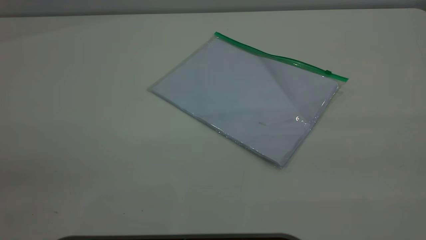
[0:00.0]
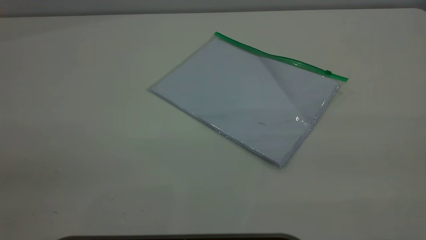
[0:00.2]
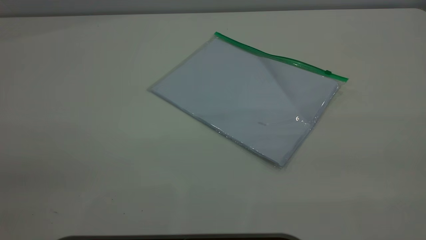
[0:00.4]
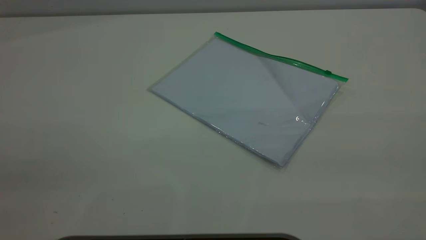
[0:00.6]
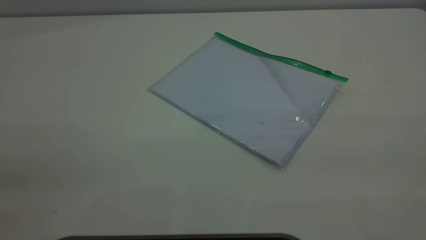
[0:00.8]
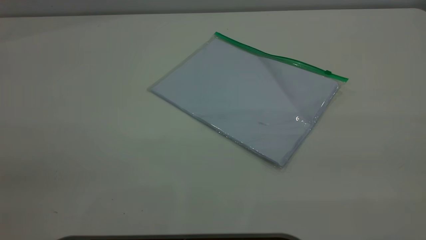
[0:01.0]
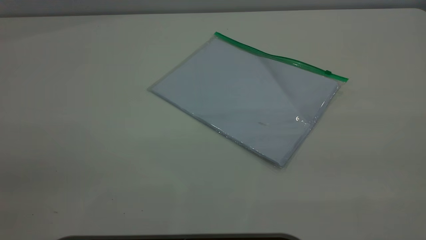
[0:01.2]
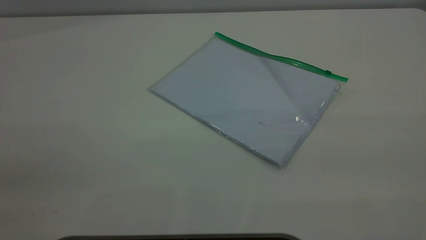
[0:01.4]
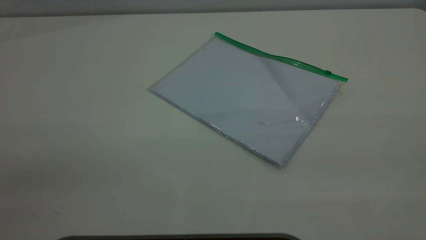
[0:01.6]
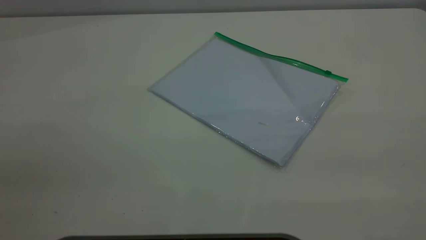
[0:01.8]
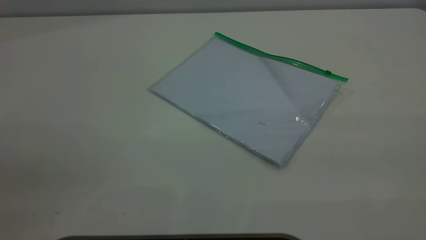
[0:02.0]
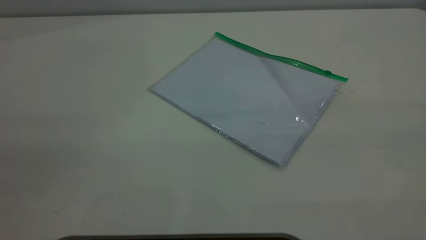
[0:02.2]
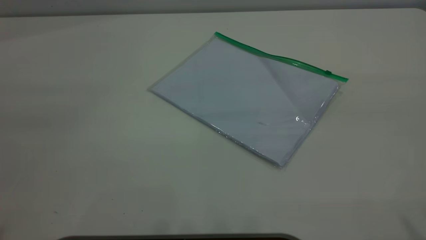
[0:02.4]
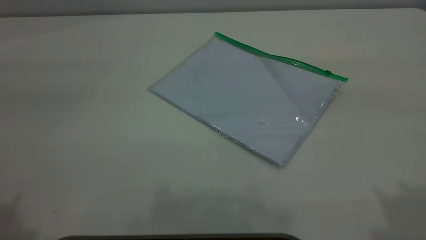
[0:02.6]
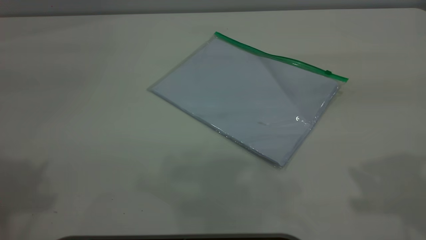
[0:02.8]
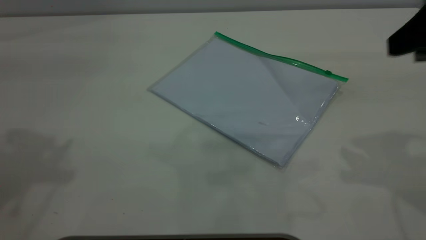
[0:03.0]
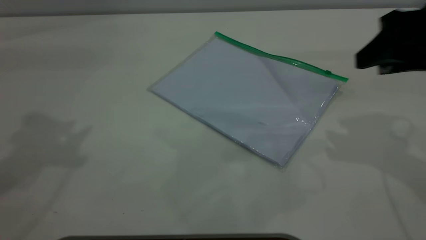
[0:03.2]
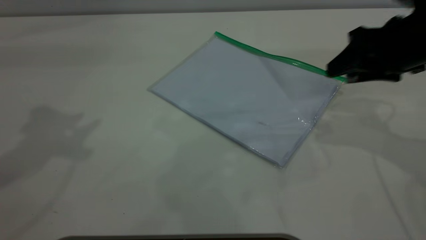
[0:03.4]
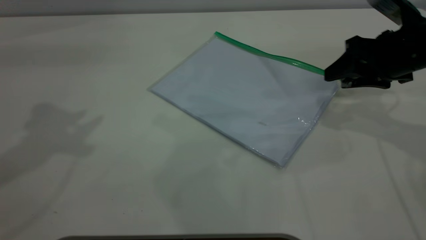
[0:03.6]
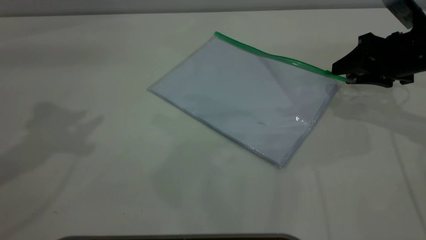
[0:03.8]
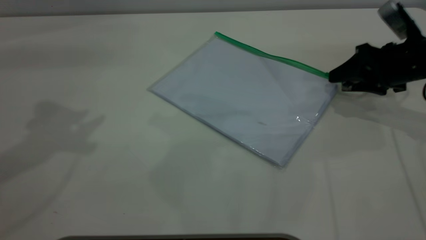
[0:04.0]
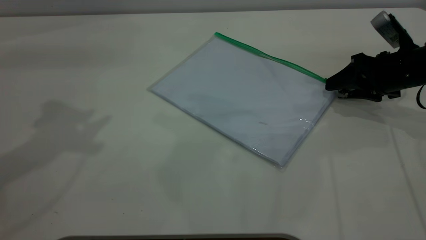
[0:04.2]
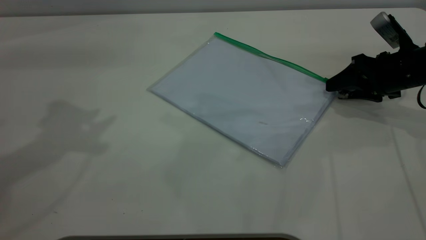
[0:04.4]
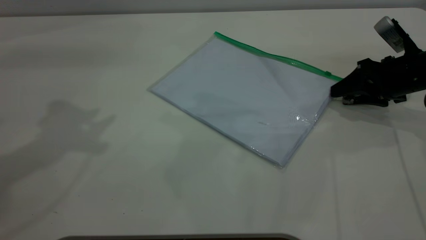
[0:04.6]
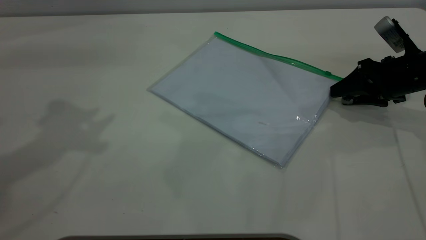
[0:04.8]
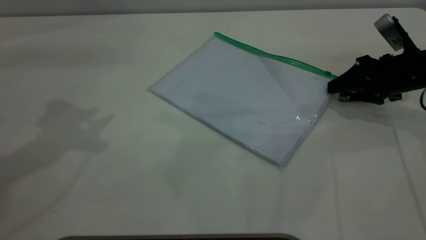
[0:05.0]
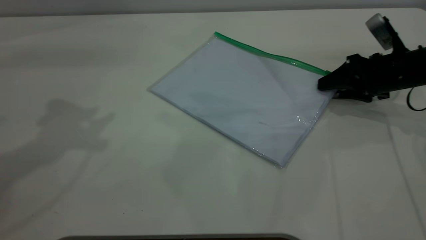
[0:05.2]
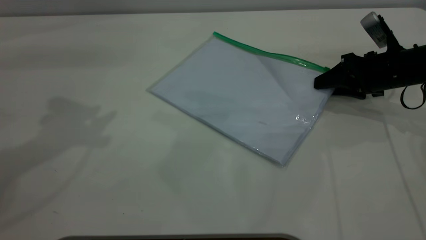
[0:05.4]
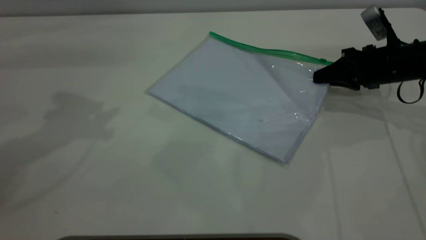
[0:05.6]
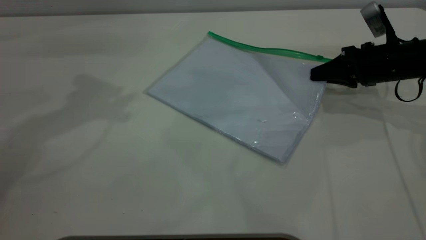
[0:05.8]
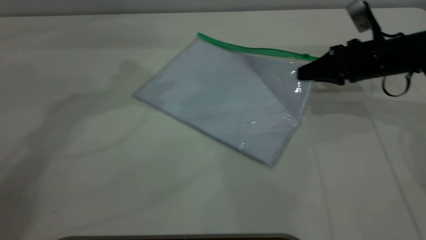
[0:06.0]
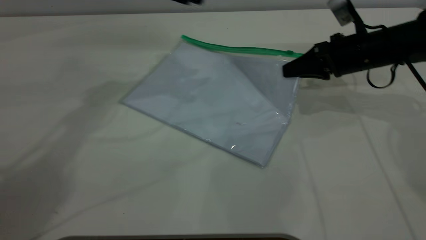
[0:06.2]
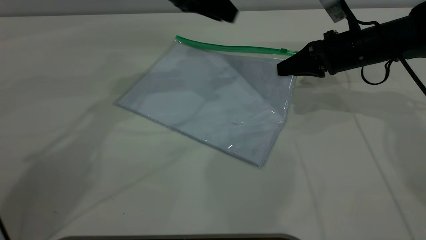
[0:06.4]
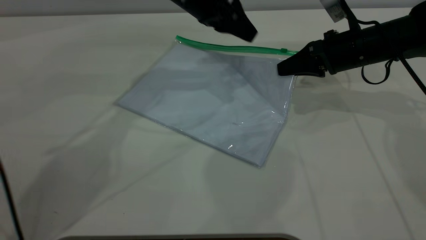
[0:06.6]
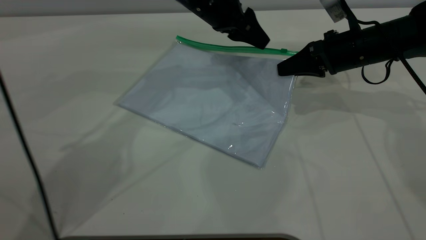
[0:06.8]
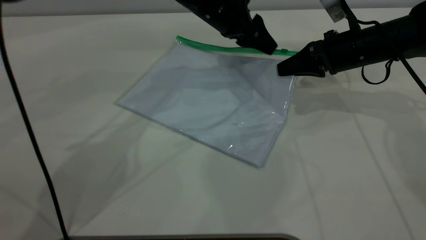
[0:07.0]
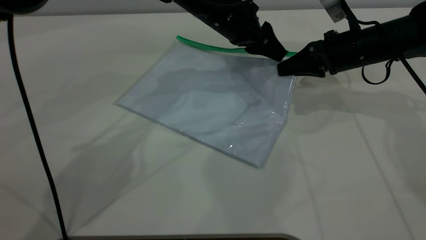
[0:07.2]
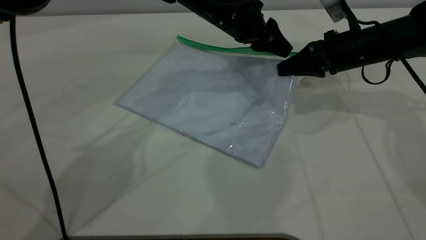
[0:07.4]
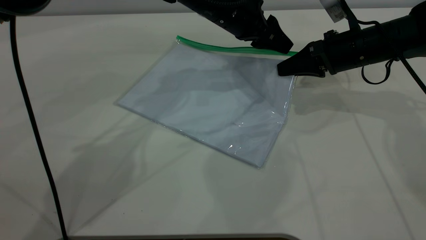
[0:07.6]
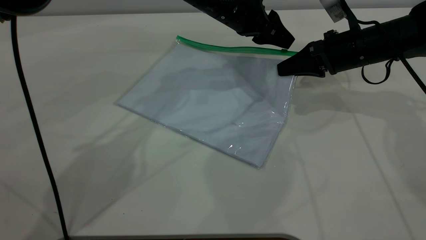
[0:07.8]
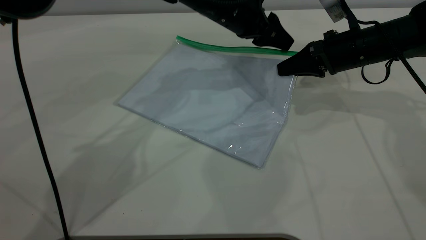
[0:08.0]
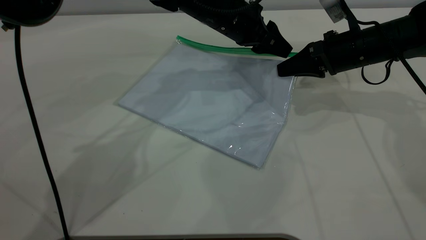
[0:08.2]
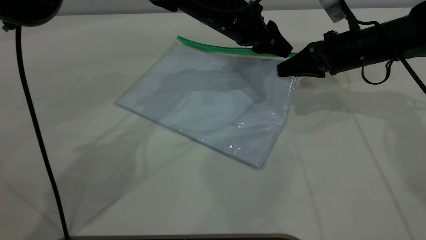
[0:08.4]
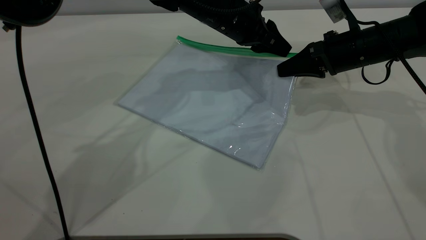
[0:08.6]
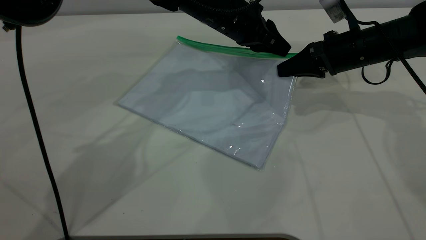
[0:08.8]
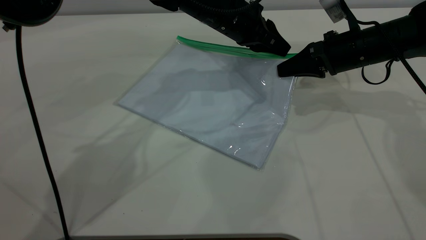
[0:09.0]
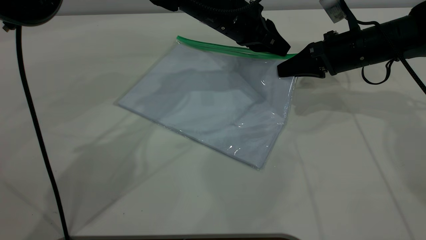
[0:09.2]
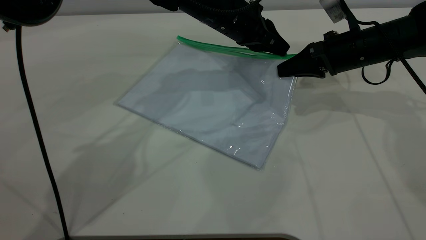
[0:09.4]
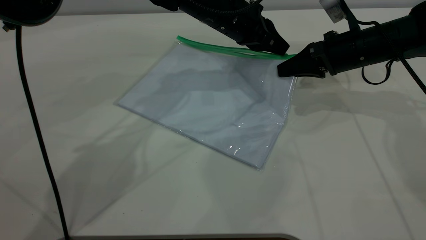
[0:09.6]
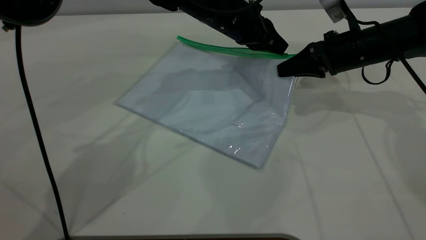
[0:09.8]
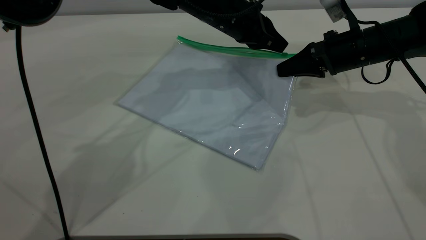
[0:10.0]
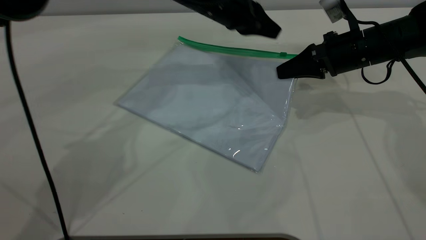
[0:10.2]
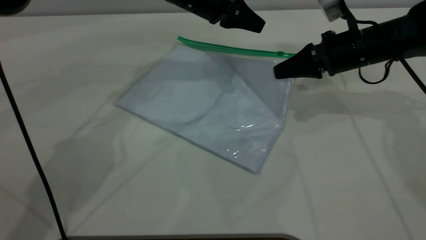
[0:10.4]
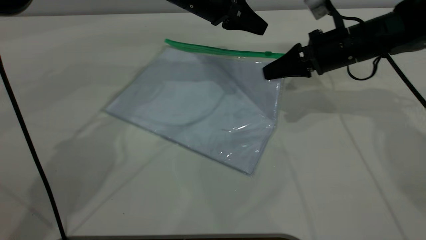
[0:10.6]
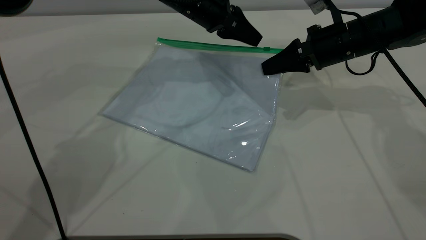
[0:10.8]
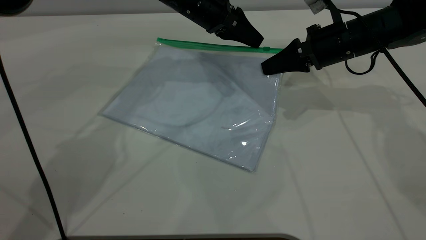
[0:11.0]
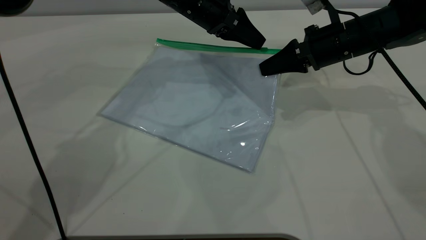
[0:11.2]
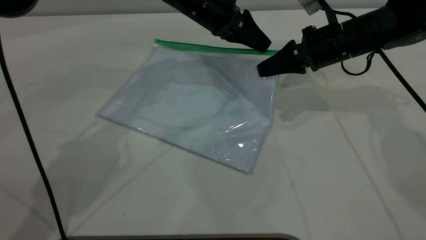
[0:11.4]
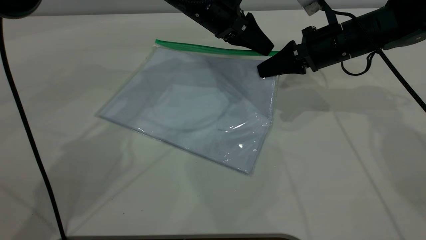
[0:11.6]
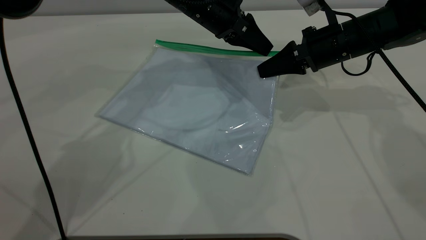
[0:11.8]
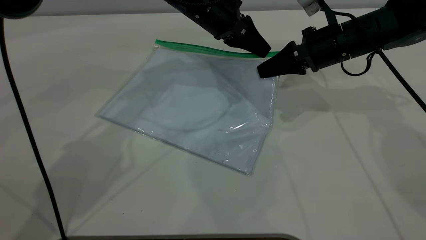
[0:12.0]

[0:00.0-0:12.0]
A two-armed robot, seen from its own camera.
Step, 0:00.0 to 0:06.0: Pick up the transparent plastic bag with the right gripper.
0:00.0 to 0:01.6: Neither gripper changes place.
0:01.6 to 0:03.0: The right gripper goes roughly 25 cm forward and downward.
0:03.0 to 0:04.4: The right gripper heads downward and forward, covering some 25 cm.
0:04.4 to 0:06.0: The left gripper shifts approximately 15 cm forward, to the right and downward. The right gripper shifts approximately 5 cm to the left, and closes its fingers.
0:06.0 to 0:07.6: The left gripper shifts roughly 20 cm to the right and downward.
0:07.6 to 0:09.0: The left gripper closes.
0:09.0 to 0:10.4: The left gripper is displaced to the left by about 5 cm.
0:10.4 to 0:12.0: The left gripper opens its fingers.

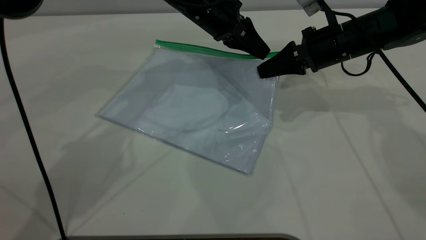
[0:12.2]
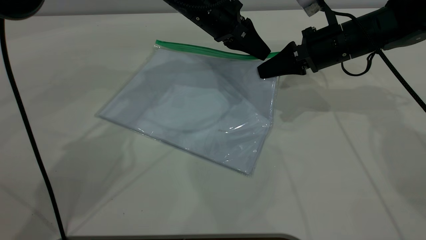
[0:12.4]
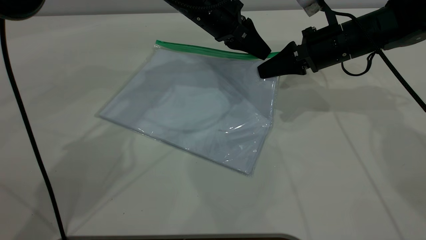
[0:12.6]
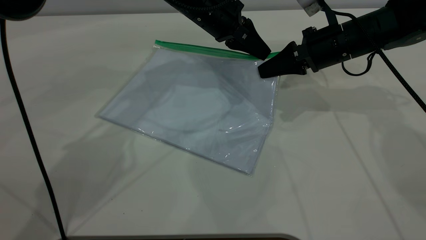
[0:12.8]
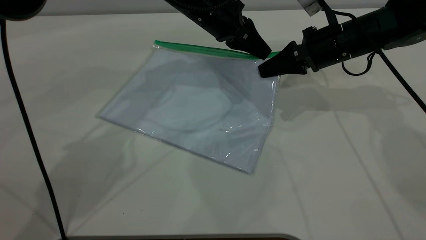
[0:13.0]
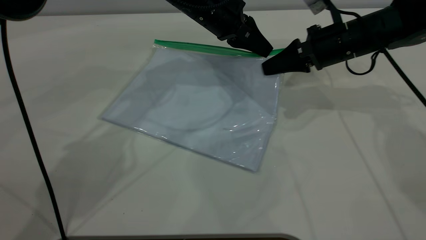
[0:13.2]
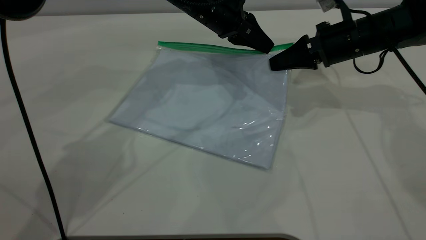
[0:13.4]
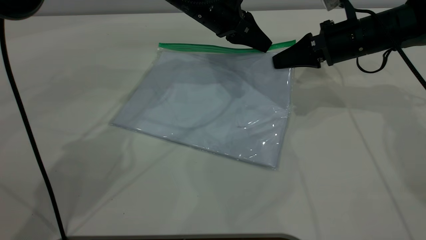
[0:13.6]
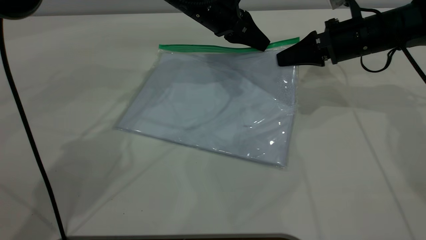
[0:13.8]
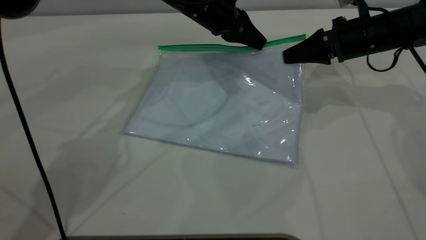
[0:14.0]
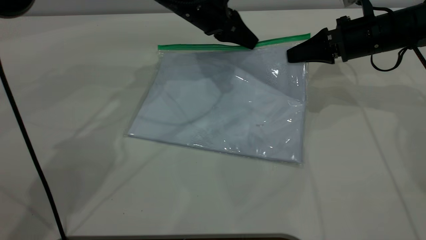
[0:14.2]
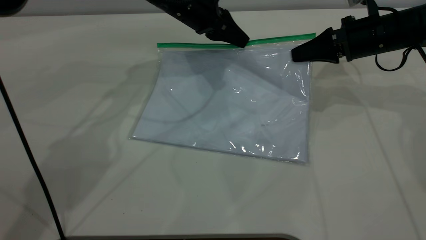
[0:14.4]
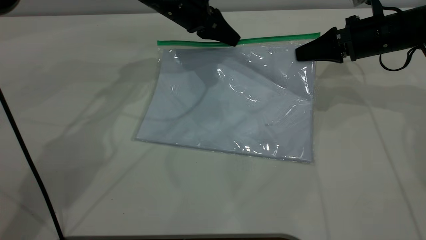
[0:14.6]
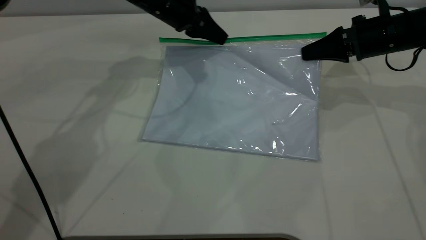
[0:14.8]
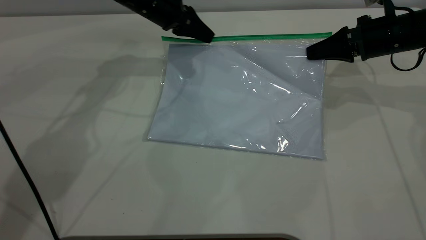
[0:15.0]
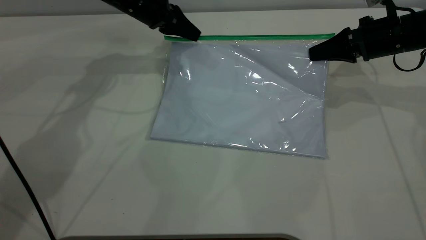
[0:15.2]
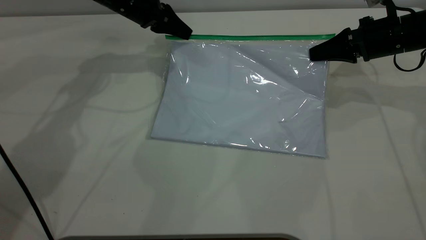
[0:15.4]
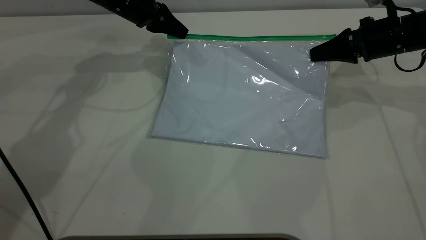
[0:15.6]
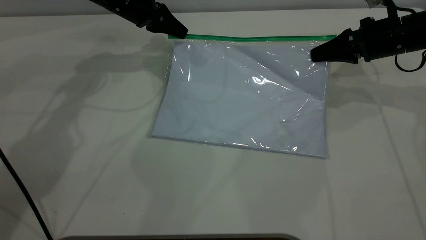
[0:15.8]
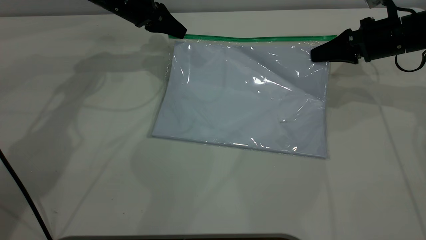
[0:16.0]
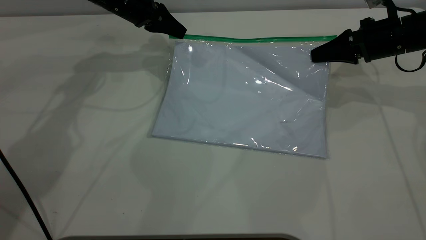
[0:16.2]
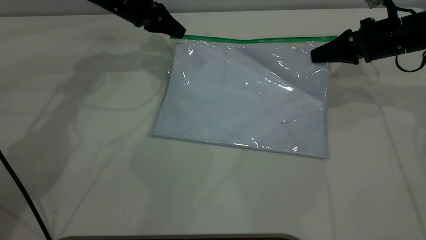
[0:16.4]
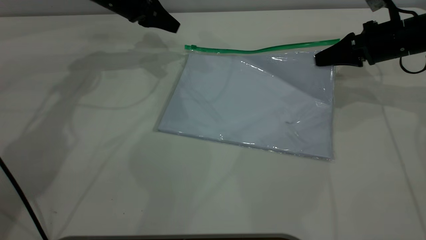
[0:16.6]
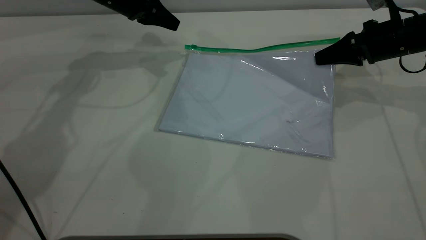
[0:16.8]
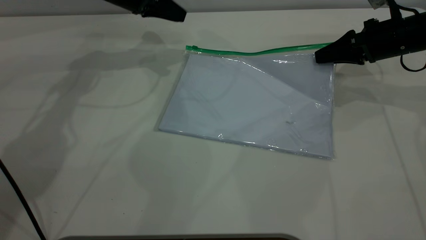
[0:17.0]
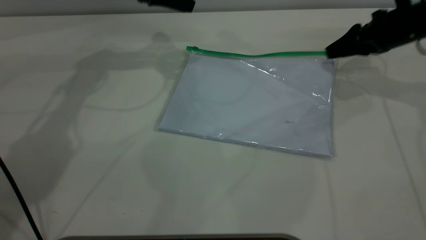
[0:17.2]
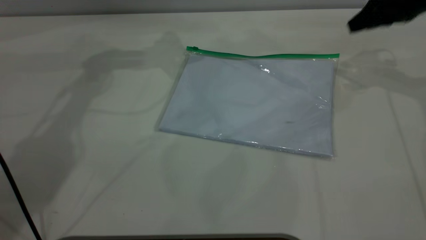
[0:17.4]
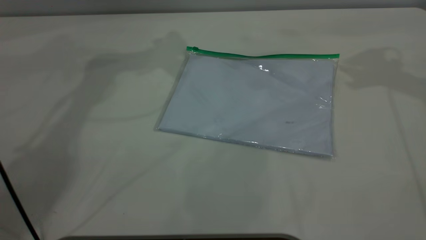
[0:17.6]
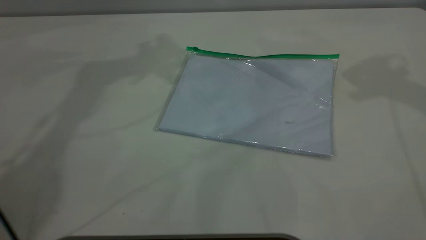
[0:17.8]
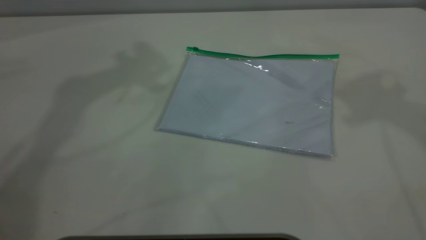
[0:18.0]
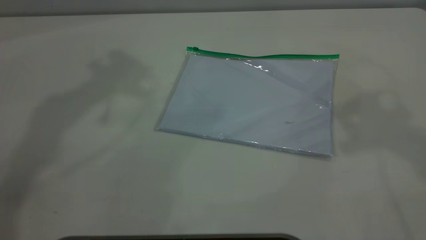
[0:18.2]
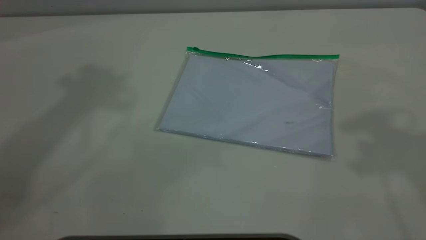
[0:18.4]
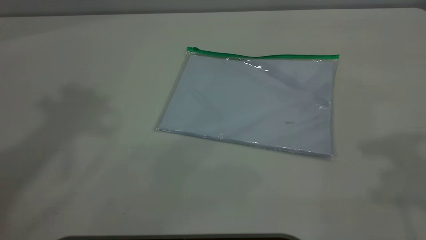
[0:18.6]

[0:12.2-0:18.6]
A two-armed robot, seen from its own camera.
Step, 0:12.2 to 0:16.4: Pulling up the zipper on the transparent plastic bag with the left gripper to close it.
Step, 0:16.6 to 0:17.4: Place the transparent plastic bag.
0:12.2 to 0:13.8: The grippers move only a little.
0:13.8 to 0:15.4: The left gripper is displaced to the left by roughly 15 cm. Meanwhile the right gripper is displaced to the right by roughly 5 cm.
0:15.4 to 0:17.0: The right gripper opens; the left gripper opens.
0:17.0 to 0:18.6: Both grippers travel together upward and backward, some 50 cm.
